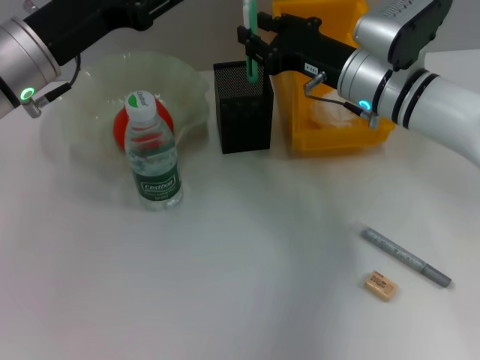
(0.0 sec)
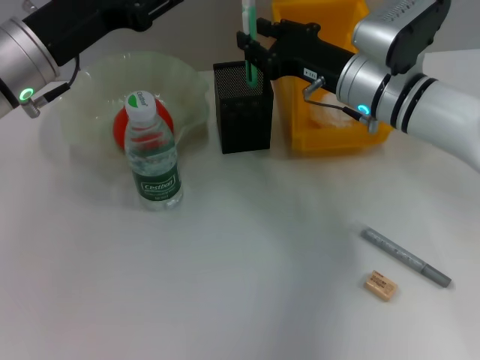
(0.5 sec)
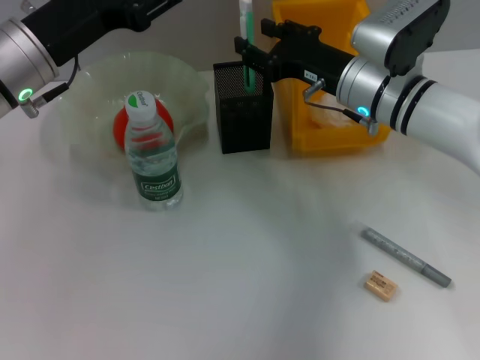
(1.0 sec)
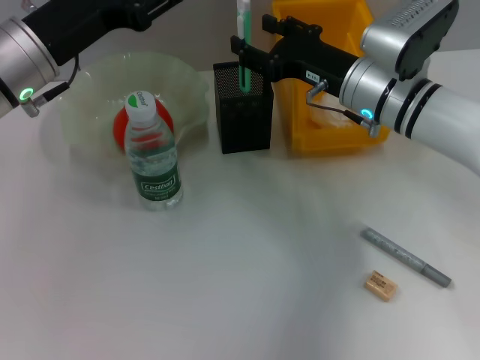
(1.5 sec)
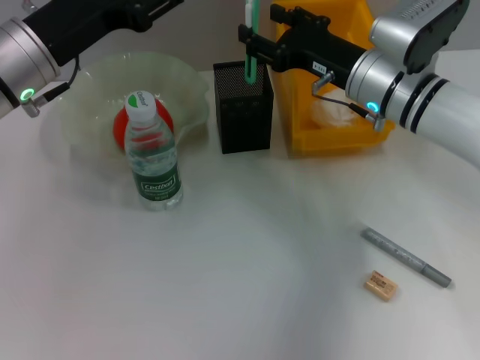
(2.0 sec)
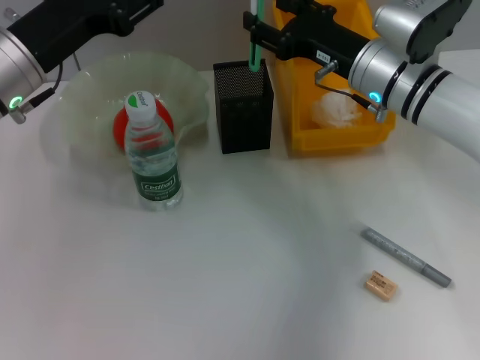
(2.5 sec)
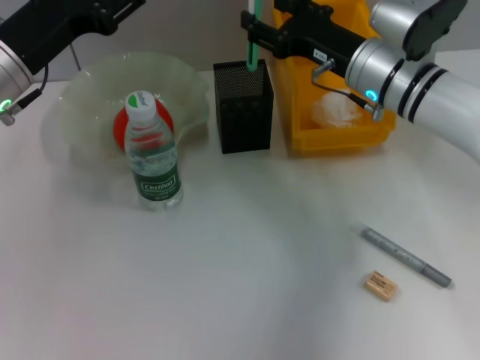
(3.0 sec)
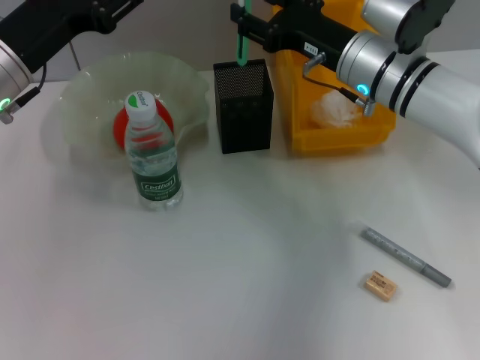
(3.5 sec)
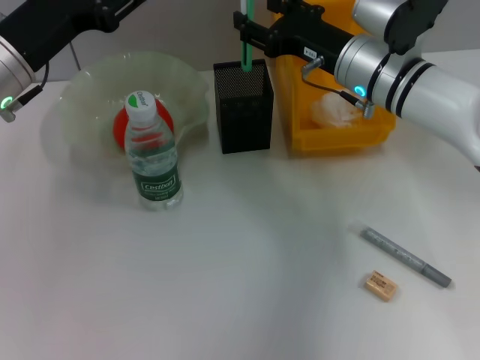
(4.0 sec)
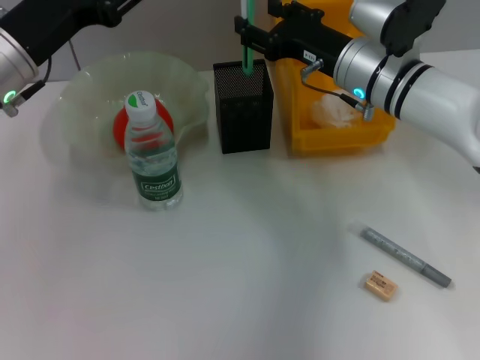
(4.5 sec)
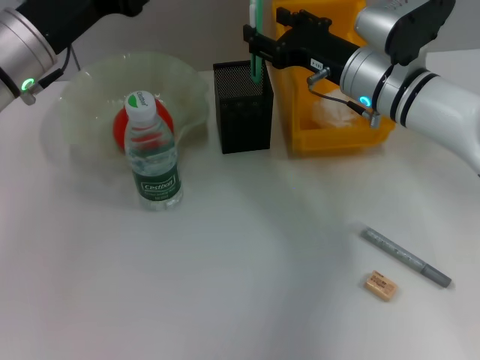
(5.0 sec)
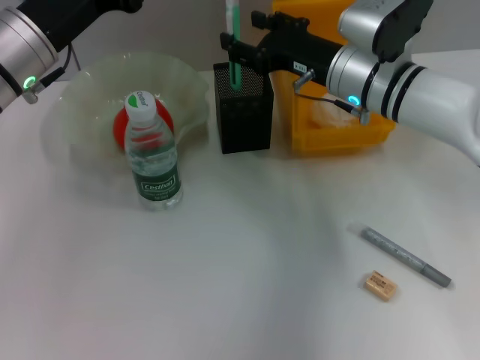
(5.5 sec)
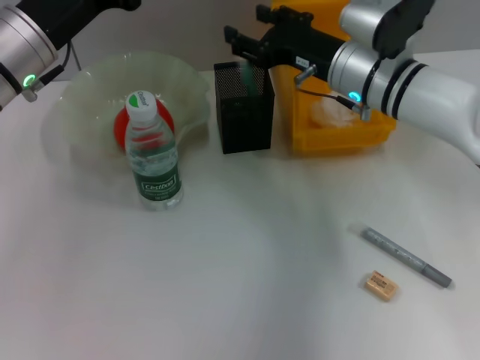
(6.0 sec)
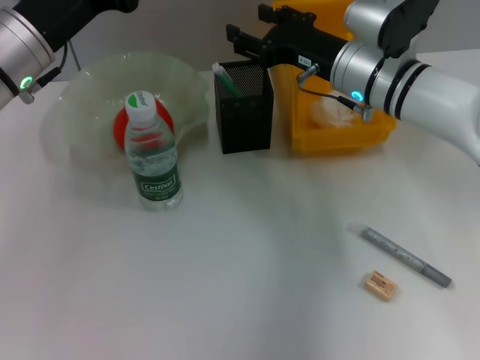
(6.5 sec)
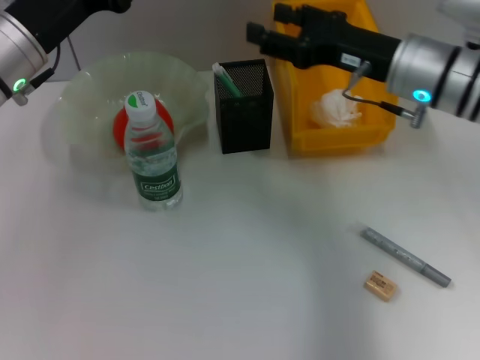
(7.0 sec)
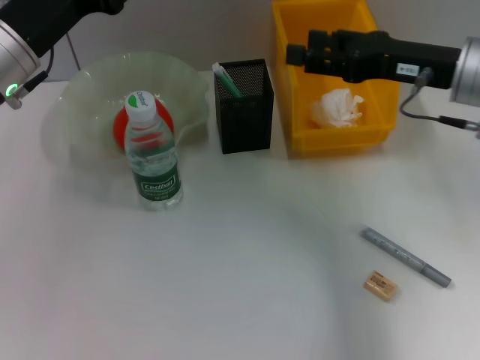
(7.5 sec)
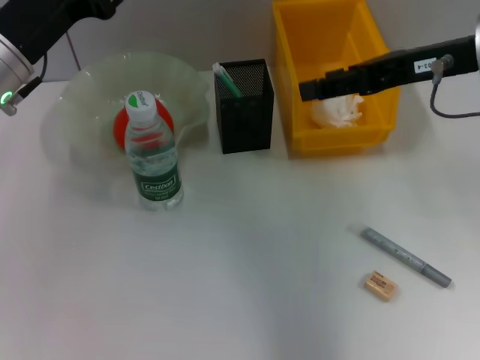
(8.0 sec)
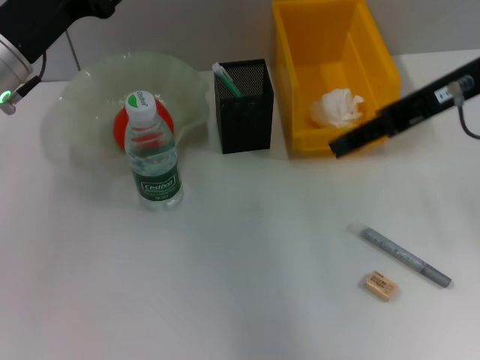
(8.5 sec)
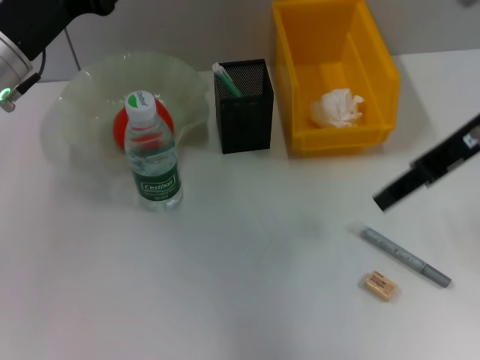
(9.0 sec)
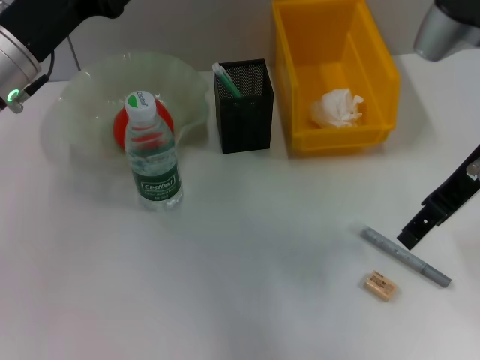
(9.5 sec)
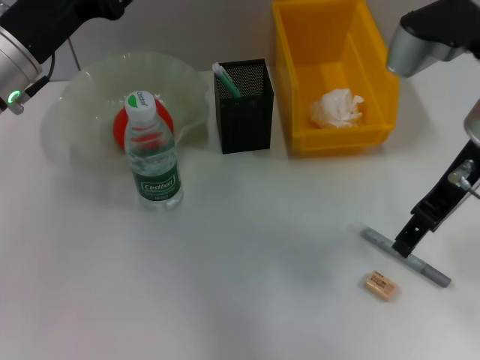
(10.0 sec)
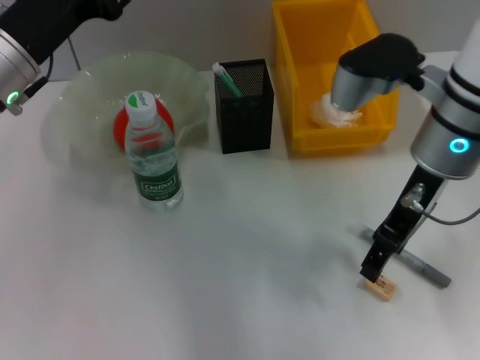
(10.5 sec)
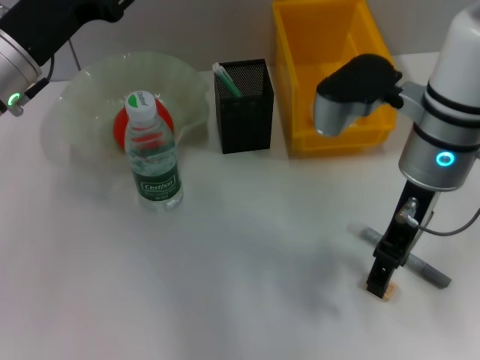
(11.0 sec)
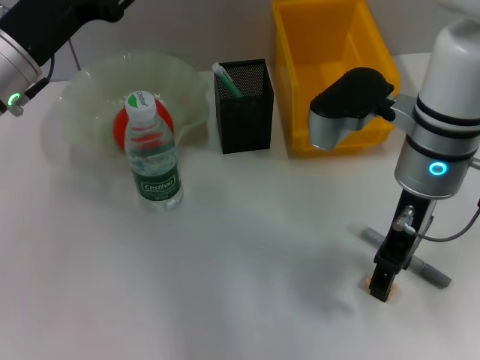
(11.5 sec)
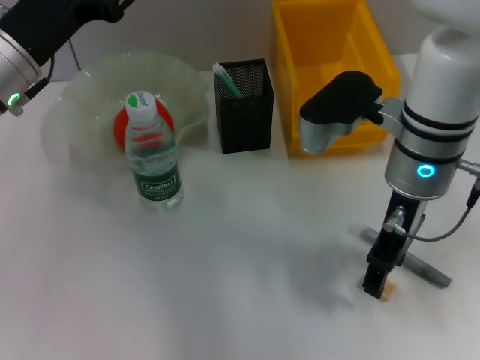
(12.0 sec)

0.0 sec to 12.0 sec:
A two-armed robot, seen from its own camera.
Step, 0.0 sec to 6.5 sec: Place the blue utility knife into the pen holder with the right hand.
0.0 sec to 2.0 sec: The right gripper opens.
2.0 sec to 6.0 sec: The grippers make only small movements.
6.0 sec to 8.0 sec: The right gripper heads upward, to the right and backward, covering some 15 cm.
10.0 sec to 12.0 sec: The right gripper is displaced to the left and downward by some 10 cm.

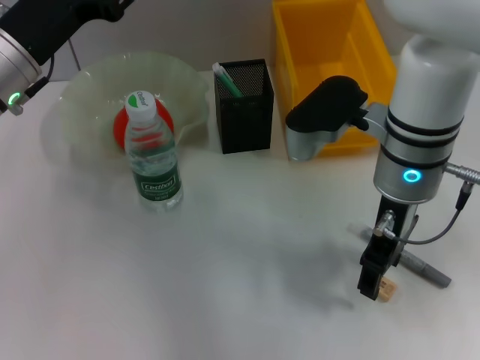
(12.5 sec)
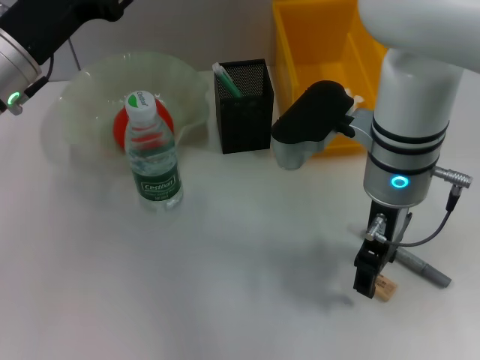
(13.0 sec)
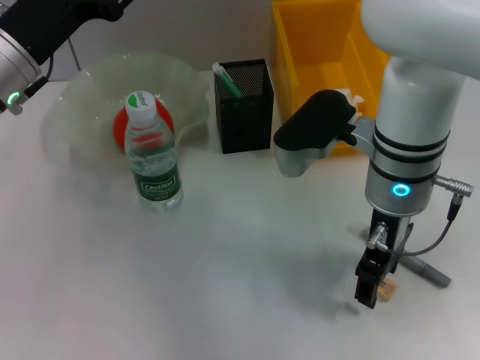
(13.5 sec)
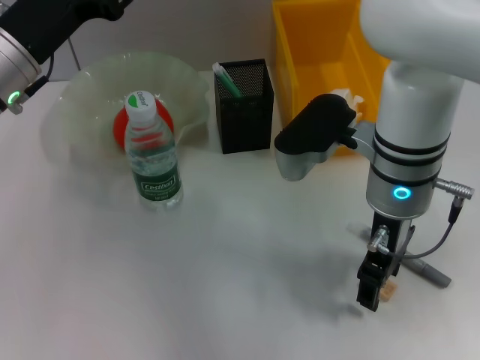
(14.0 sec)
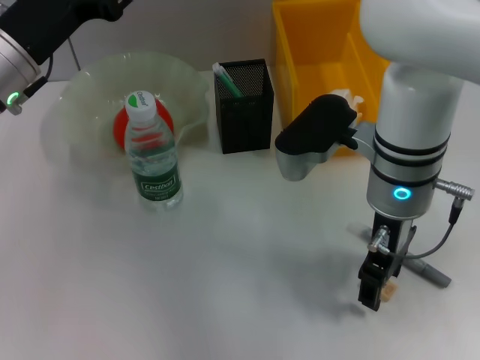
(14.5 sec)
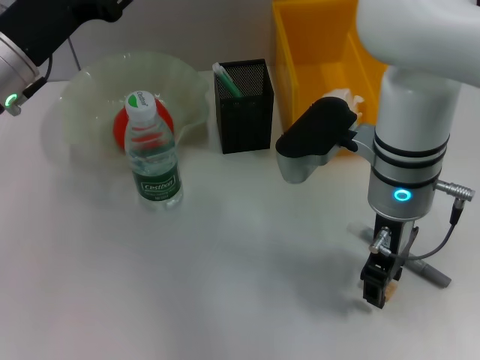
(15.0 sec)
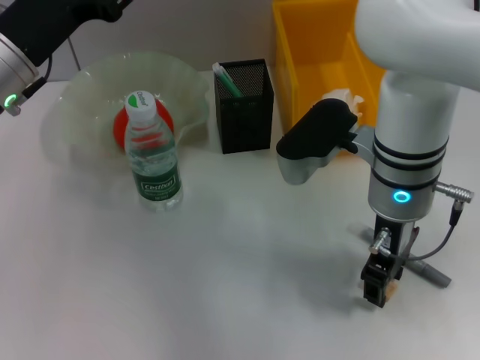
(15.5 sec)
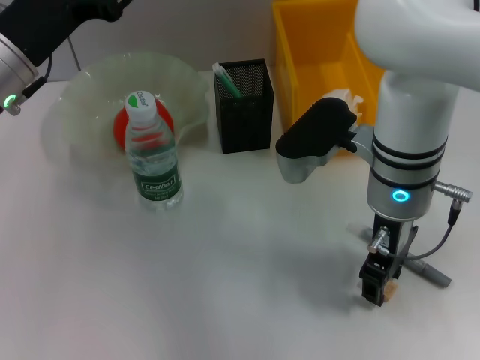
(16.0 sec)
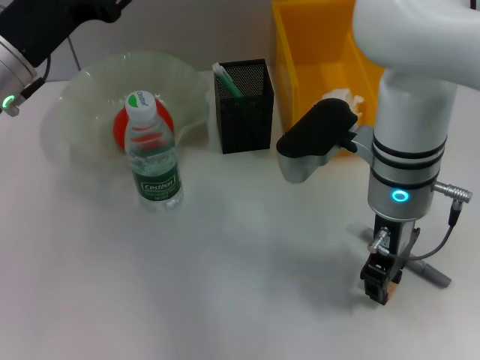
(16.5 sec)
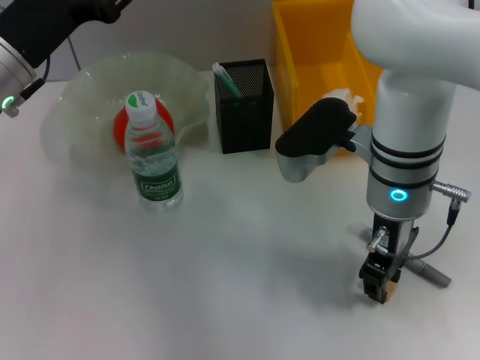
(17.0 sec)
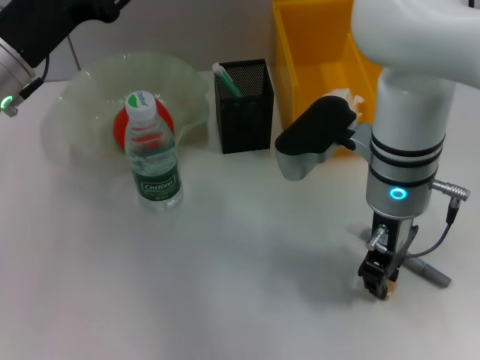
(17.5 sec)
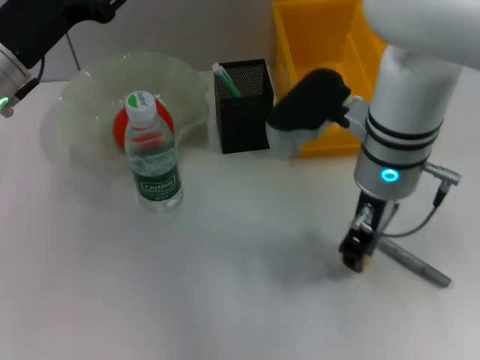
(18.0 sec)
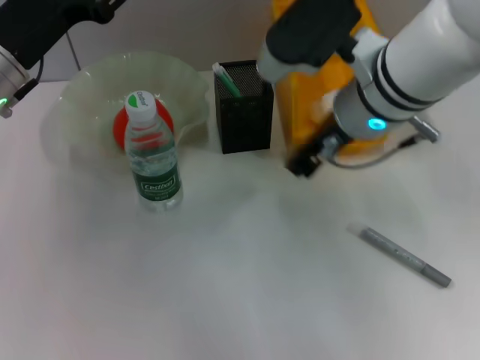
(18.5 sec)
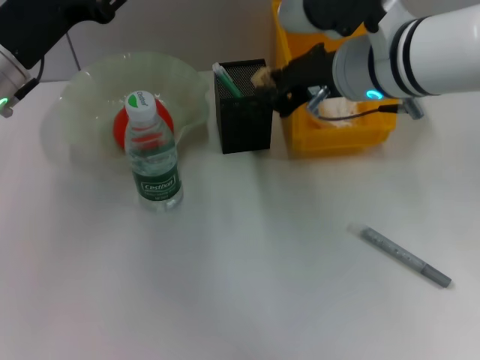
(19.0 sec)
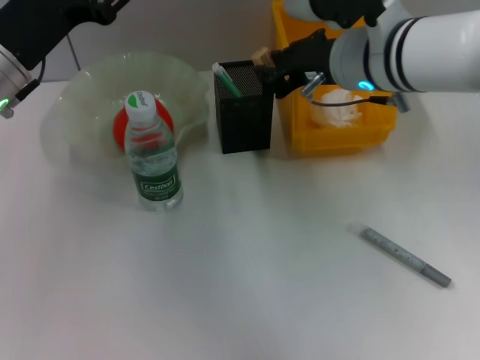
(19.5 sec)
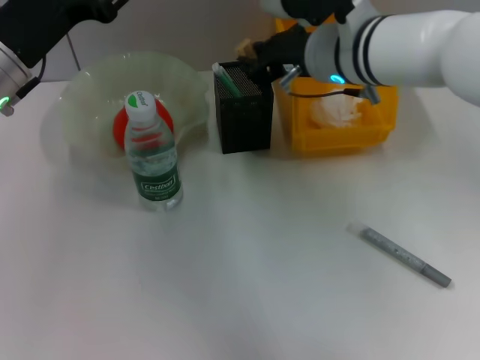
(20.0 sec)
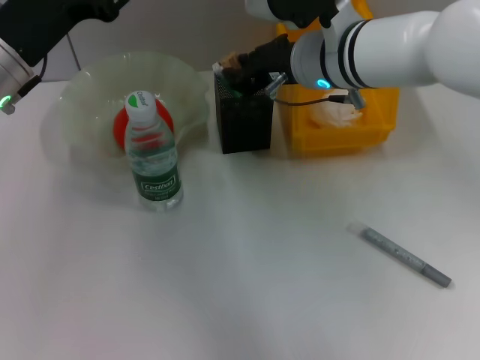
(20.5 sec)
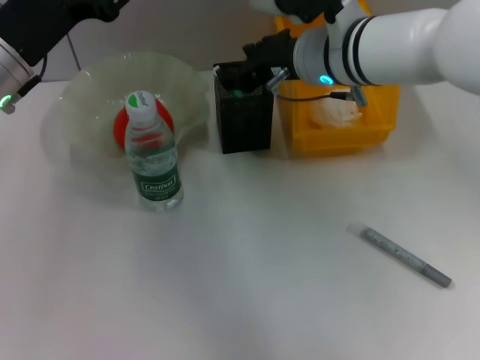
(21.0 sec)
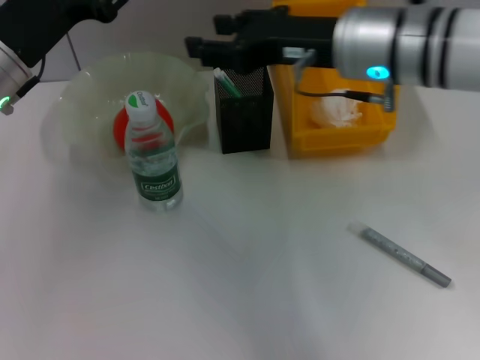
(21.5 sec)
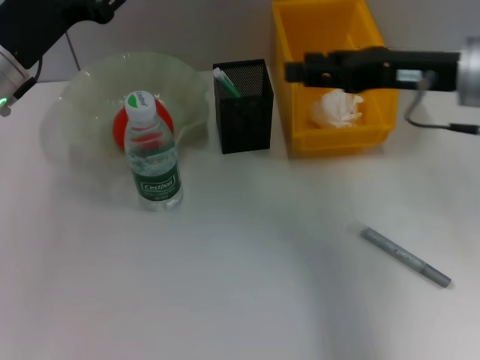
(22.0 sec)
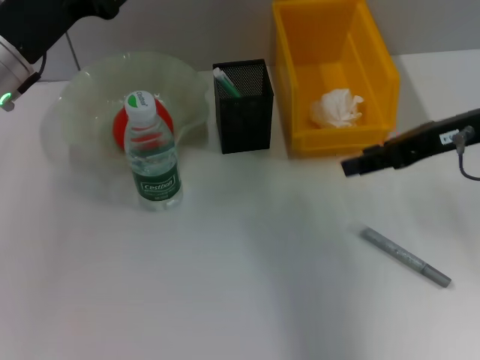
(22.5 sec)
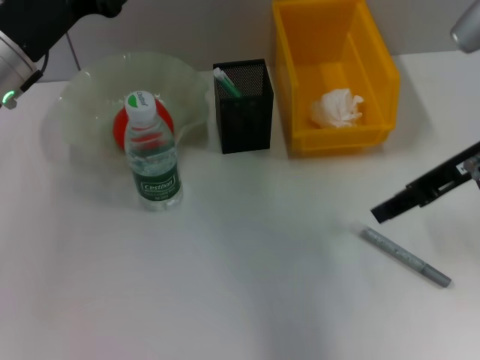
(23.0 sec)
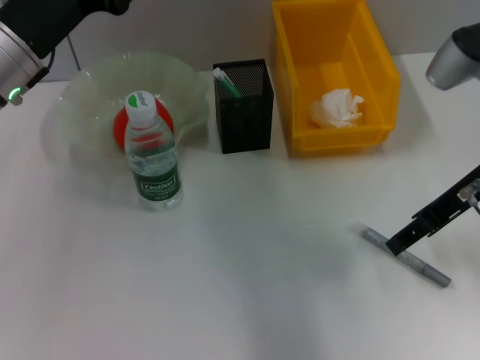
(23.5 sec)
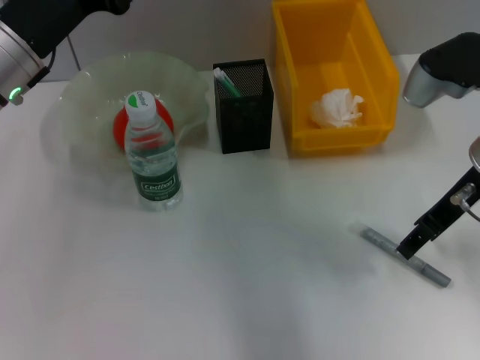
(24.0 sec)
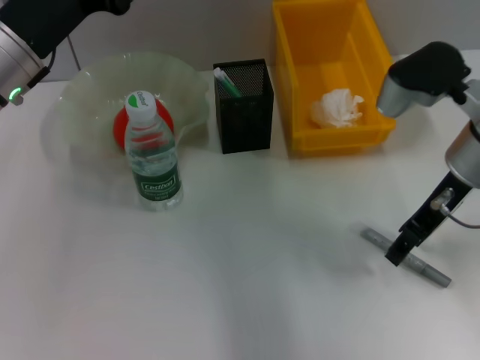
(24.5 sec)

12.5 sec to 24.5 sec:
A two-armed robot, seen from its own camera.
Step, 12.5 sec to 17.5 sec: Grab the eraser with the right hand.
Step, 18.0 sec to 20.5 sec: Put the eraser into the pen holder with the right hand.
12.5 sec to 14.5 sec: The grippers make only small movements.
14.5 sec to 16.5 sec: The right gripper closes up.
16.5 sec to 18.5 sec: The right gripper is displaced upward by roughly 5 cm.
18.5 sec to 20.5 sec: The right gripper travels forward by approximately 5 cm.
20.5 sec to 22.5 sec: The right gripper travels to the right and backward by approximately 15 cm, and opens up.
22.5 sec to 24.5 sec: The right gripper changes place by some 5 cm.

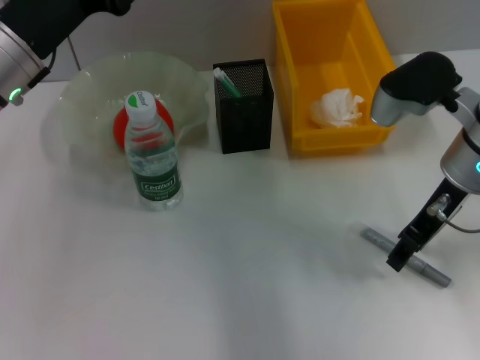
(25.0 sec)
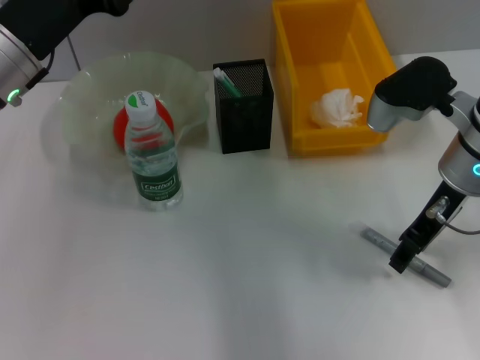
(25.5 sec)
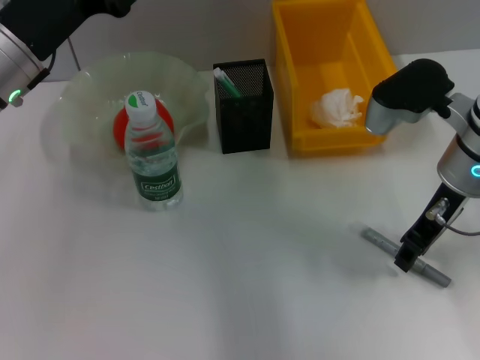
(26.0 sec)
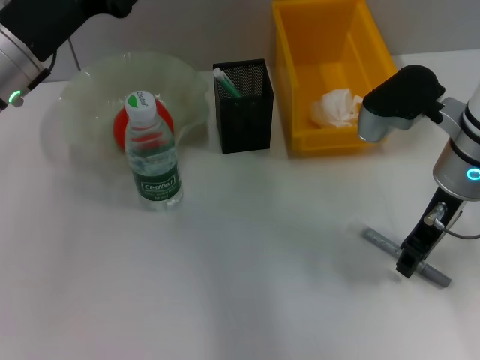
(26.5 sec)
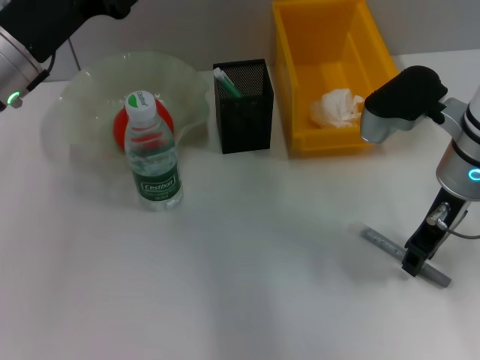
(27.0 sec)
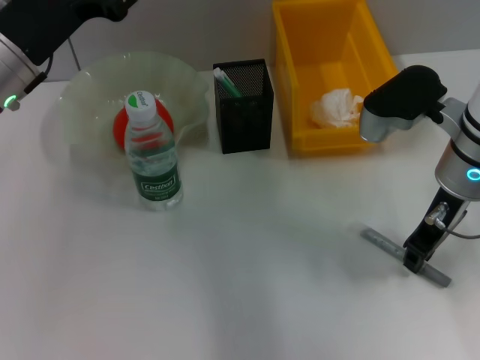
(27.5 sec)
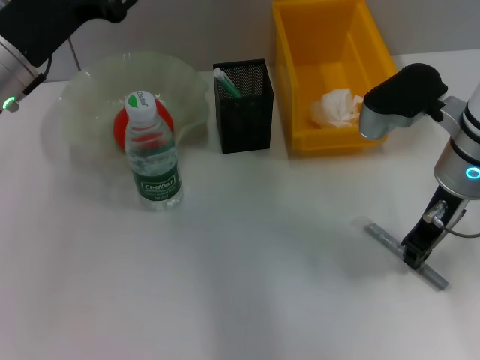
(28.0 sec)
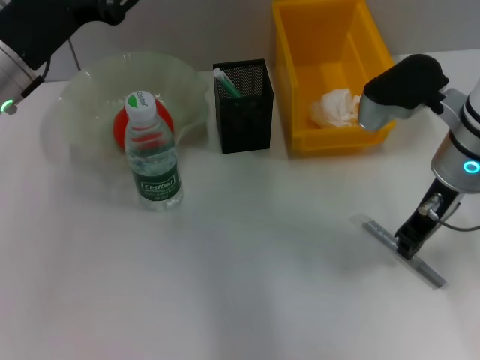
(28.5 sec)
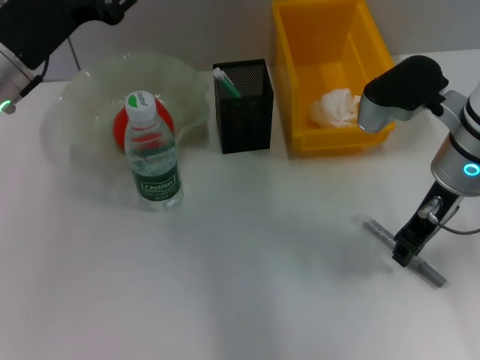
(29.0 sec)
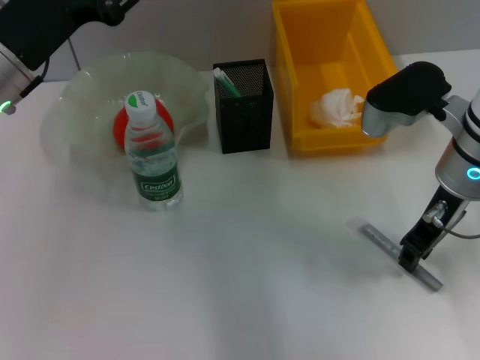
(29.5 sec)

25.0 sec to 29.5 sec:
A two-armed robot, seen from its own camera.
25.0 sec to 27.0 sec: The grippers make only small movements.
27.0 sec to 29.5 sec: Both grippers stay put.
